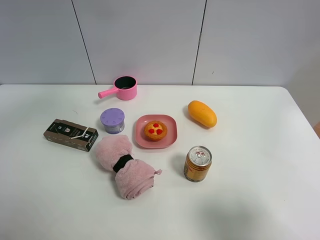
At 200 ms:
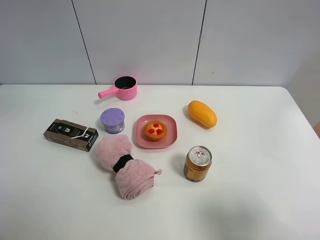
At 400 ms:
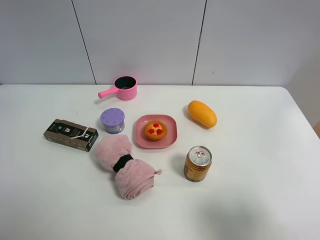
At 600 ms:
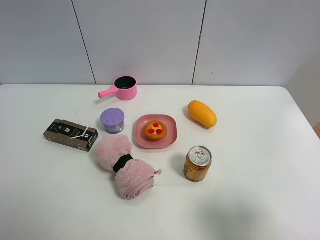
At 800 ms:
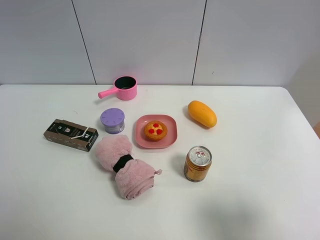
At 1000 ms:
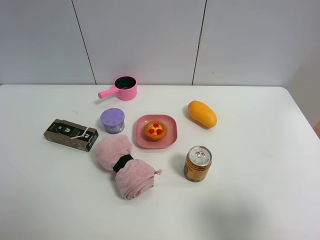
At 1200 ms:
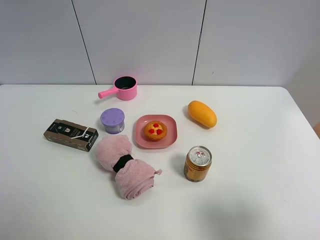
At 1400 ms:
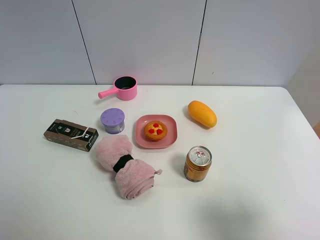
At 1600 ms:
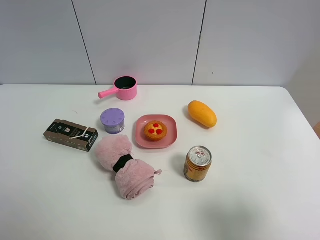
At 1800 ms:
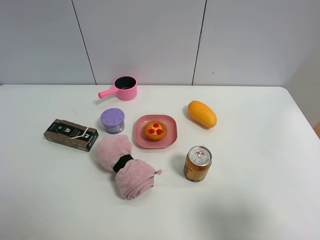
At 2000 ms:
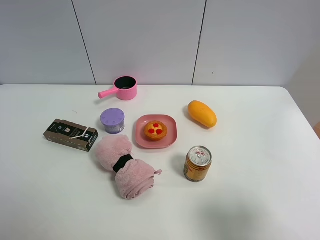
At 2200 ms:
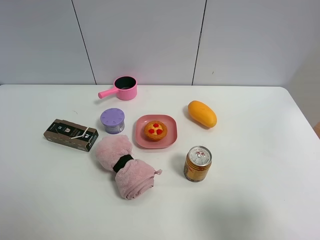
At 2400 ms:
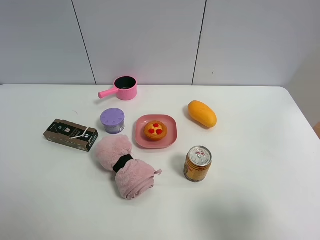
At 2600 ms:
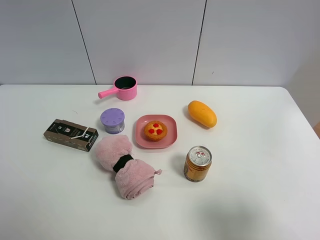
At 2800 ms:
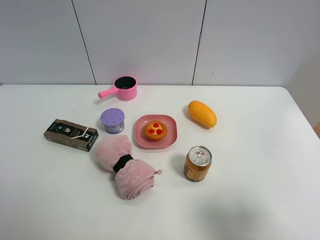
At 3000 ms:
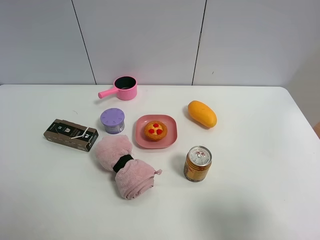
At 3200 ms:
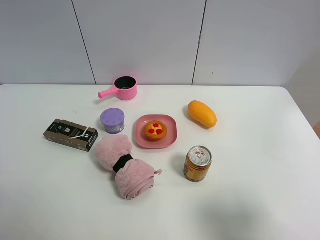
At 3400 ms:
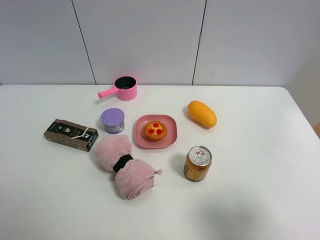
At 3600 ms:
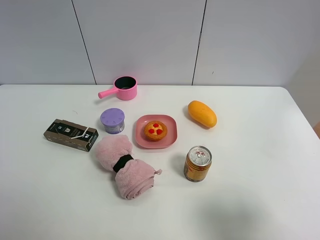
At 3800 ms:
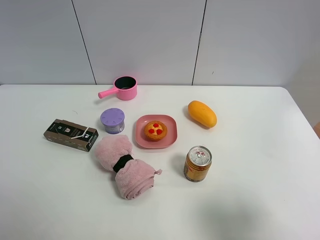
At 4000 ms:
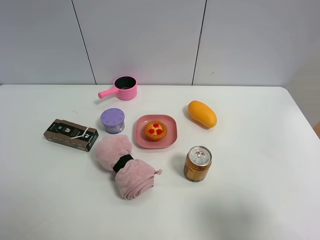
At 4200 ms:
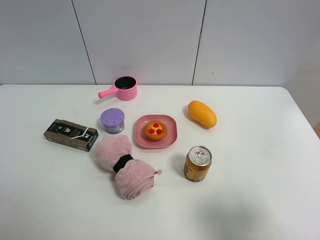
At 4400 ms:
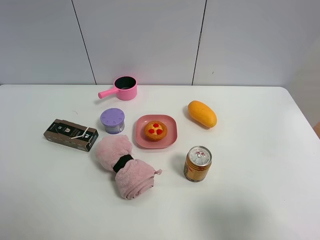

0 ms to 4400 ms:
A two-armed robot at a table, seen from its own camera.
Task of the whole recording: the gripper move the object.
0 ms to 1400 ms: The left gripper is displaced backward and to the left by roughly 40 cm.

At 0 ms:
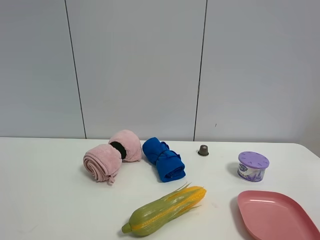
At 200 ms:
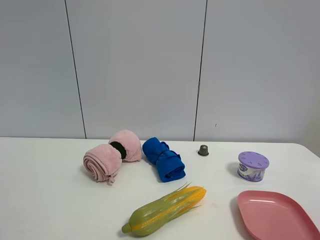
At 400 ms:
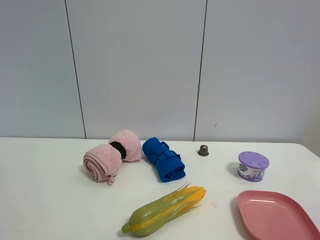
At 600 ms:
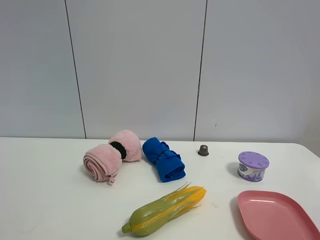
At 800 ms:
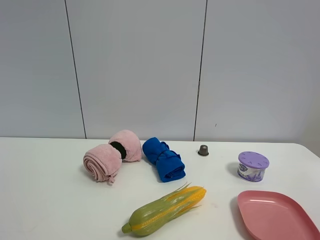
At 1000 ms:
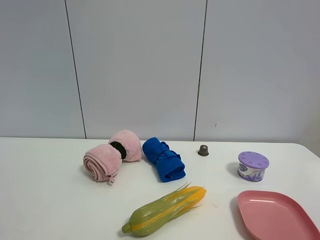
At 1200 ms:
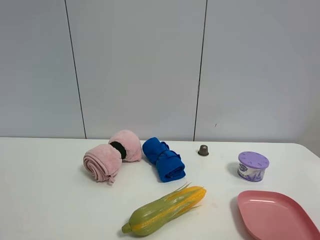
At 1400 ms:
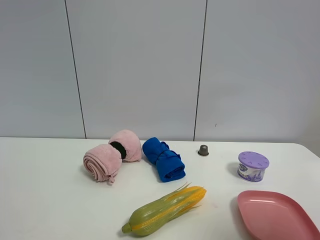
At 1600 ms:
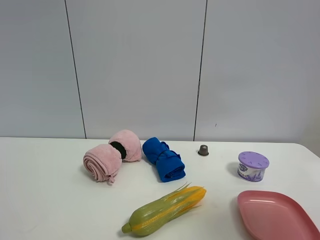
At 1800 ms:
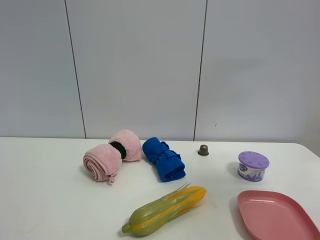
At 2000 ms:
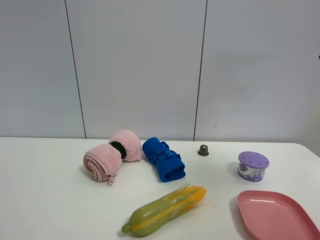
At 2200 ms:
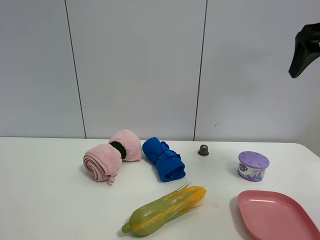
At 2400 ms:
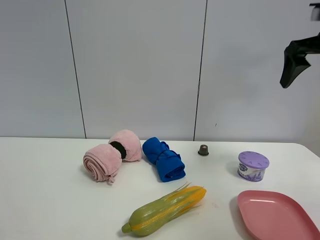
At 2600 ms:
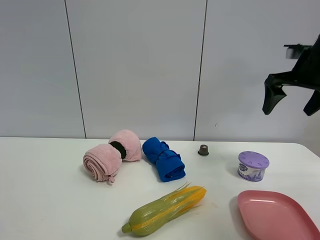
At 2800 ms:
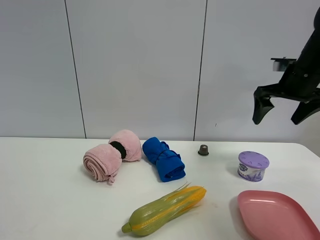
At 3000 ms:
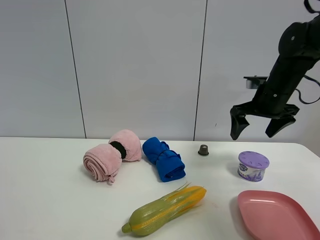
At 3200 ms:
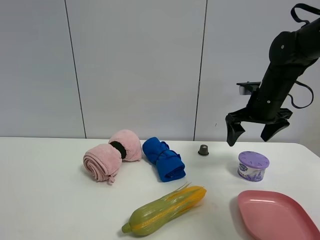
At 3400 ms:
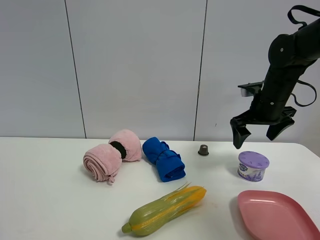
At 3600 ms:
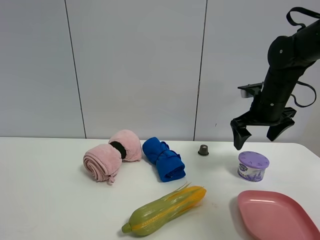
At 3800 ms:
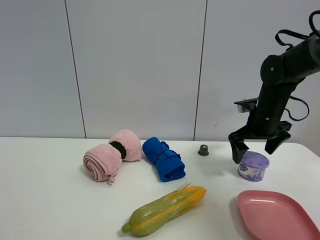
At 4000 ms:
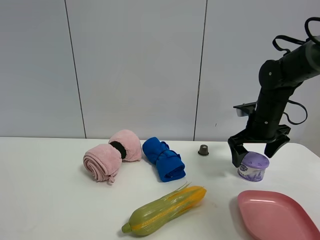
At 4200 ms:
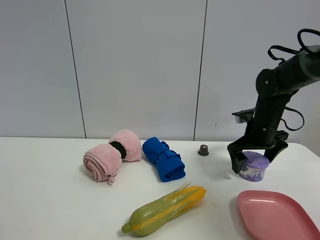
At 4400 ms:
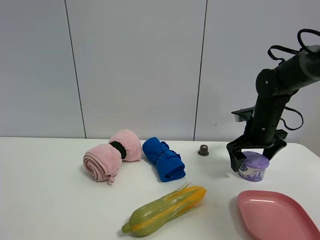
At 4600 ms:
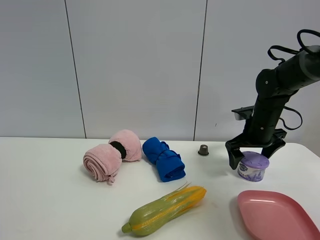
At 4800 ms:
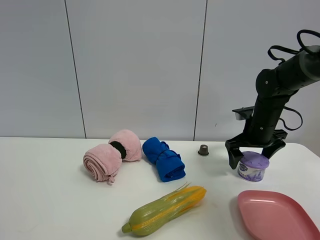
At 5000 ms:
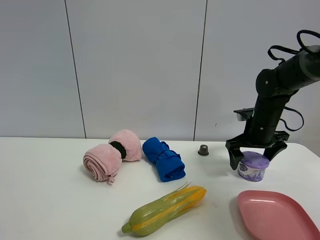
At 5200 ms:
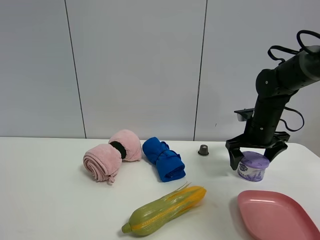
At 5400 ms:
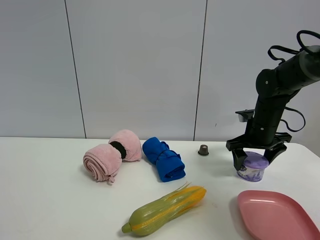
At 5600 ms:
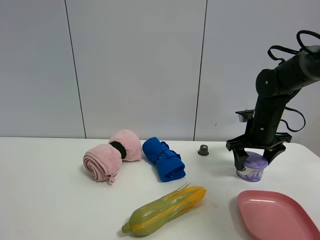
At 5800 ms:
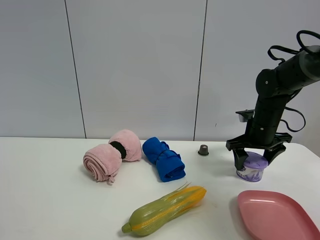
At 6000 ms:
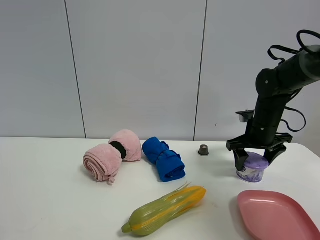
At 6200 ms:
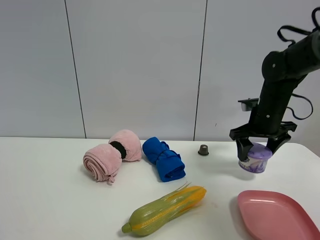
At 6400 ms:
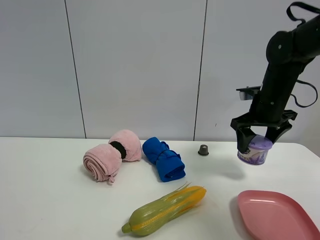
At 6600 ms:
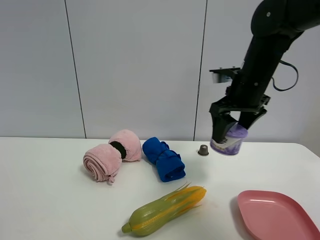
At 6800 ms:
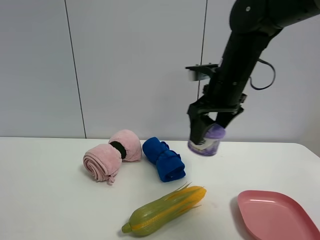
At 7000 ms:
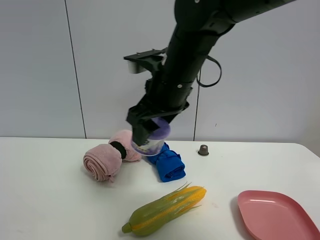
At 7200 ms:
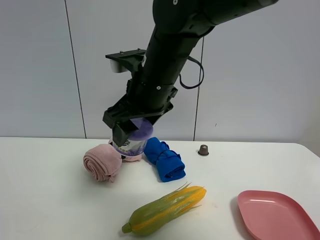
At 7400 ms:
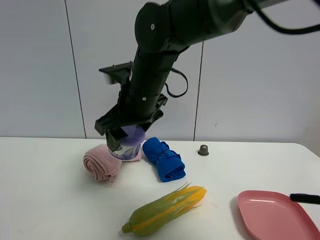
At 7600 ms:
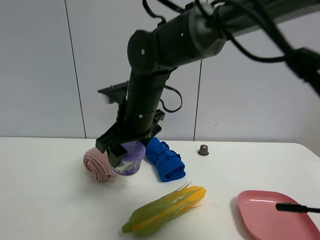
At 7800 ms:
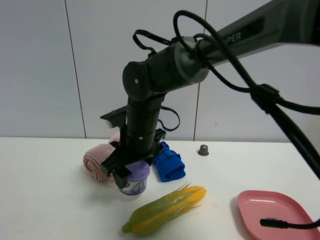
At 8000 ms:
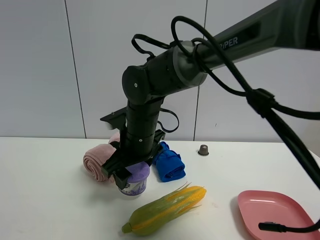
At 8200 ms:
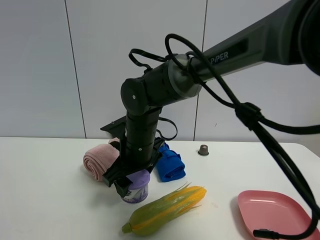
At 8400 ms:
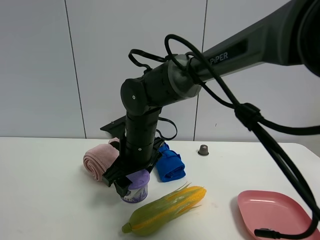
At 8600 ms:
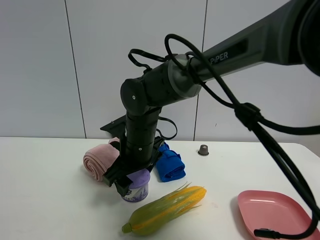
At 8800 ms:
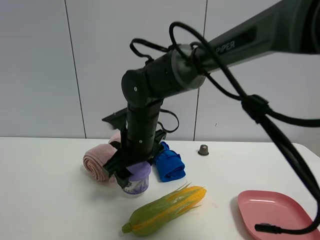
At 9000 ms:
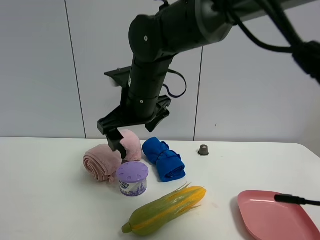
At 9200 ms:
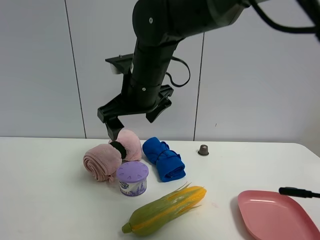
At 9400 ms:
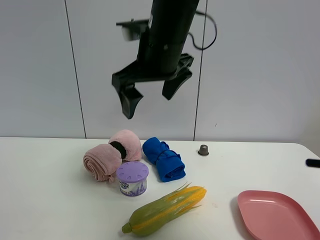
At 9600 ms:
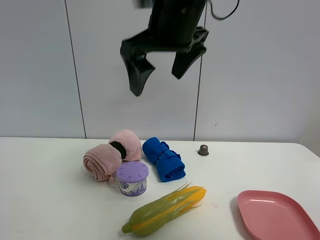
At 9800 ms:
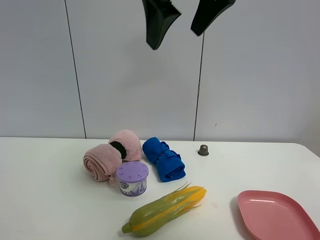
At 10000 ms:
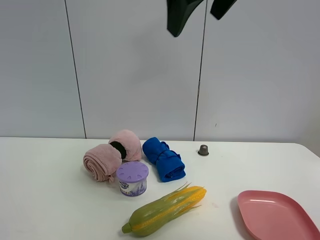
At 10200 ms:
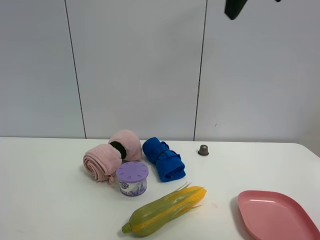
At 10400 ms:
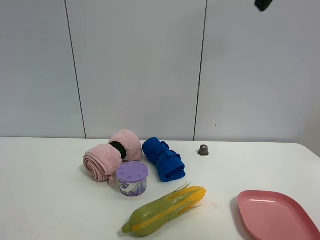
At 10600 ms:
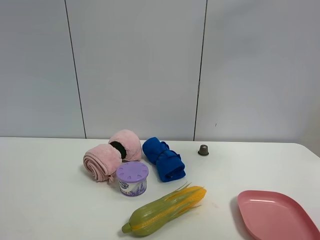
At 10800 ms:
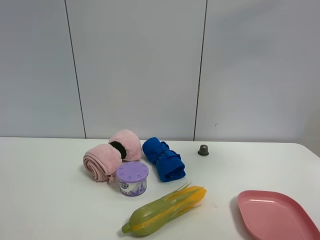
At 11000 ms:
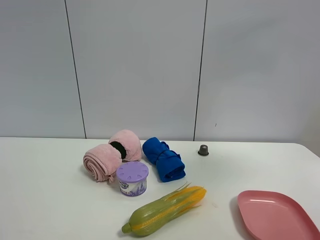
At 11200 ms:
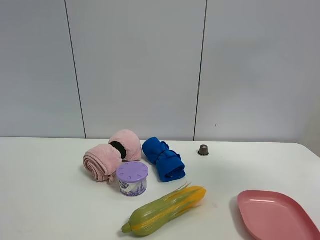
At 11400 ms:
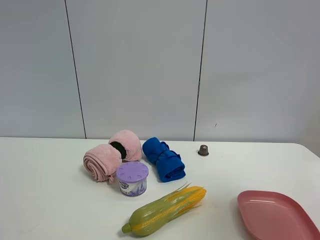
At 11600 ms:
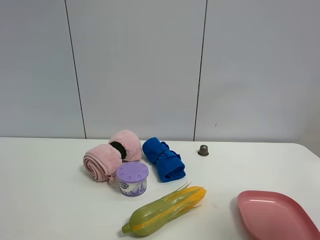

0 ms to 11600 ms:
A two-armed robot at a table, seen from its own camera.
Task of the whole recording: the gripper move the object.
Step, 0 ms to 5600 ms: Grasp the Incense box with the right gripper.
Step, 5800 ms to 8800 ms: Place the Incense box on the table with the right gripper.
0 ms to 1400 ms: The right gripper goes roughly 15 cm upward and forward.
1400 ms to 2800 ms: The right gripper goes roughly 35 cm forward.
2800 ms to 4400 ms: The right gripper is displaced downward by roughly 10 cm.
4400 ms to 5800 ms: The right gripper closes.
5800 ms to 7200 ms: The right gripper is displaced to the left, backward and upward by approximately 30 cm.
7200 ms to 8800 ms: The right gripper shifts some 10 cm downward.
8800 ms to 10200 ms: The right gripper moves upward and to the right, roughly 35 cm, and opens up.
10200 ms to 11600 ms: The right gripper goes roughly 25 cm backward, to the right and downward.

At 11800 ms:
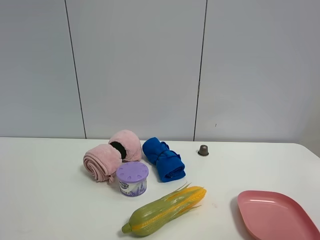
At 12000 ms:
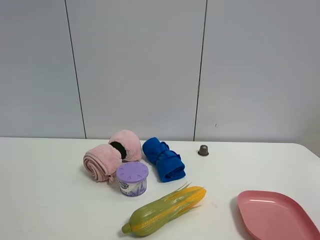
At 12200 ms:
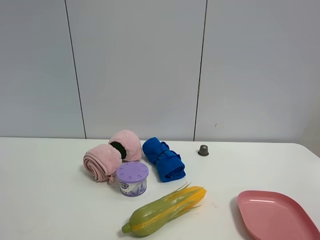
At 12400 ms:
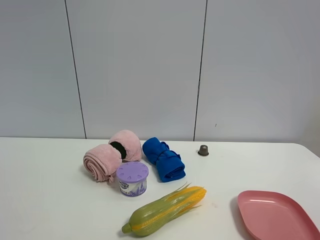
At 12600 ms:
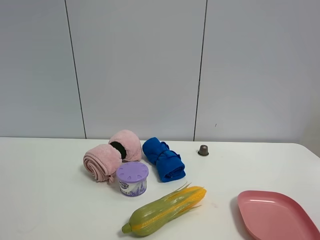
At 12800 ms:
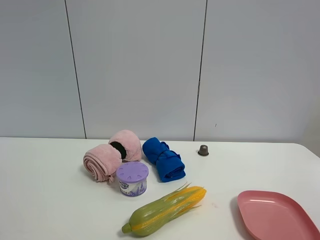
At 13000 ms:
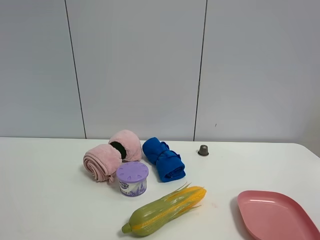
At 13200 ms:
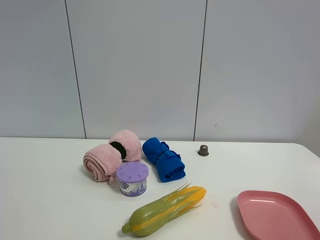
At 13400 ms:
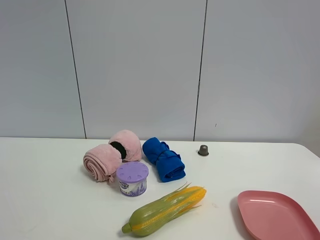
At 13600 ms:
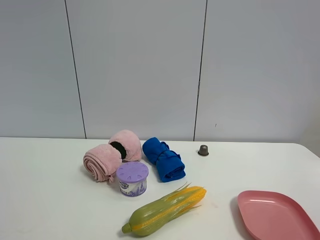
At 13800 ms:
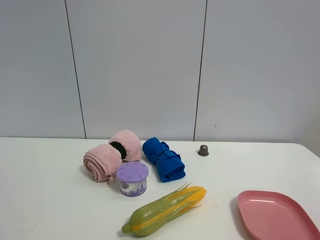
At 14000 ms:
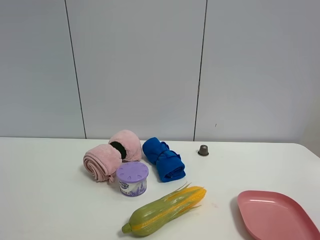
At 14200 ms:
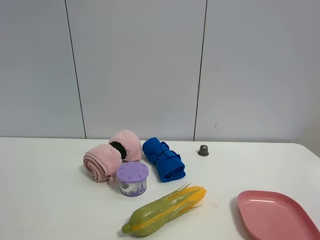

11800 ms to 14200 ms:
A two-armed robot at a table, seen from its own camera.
Task of the whole recording: the gripper move the object.
13000 ms to 14200 ms: Both grippers stay about where they are.

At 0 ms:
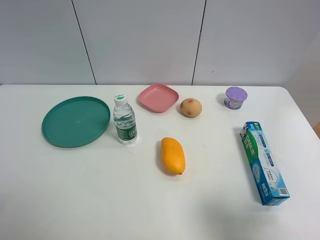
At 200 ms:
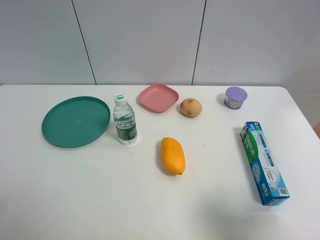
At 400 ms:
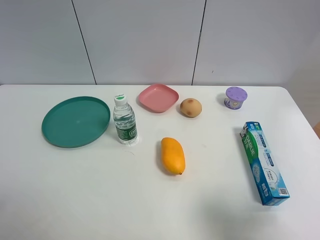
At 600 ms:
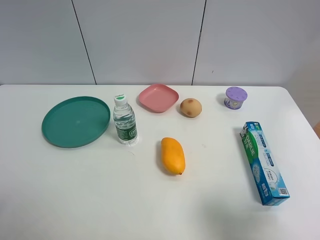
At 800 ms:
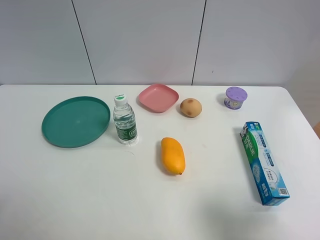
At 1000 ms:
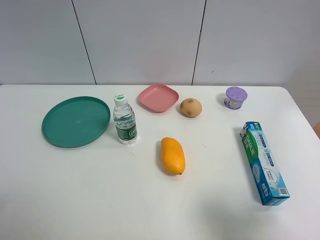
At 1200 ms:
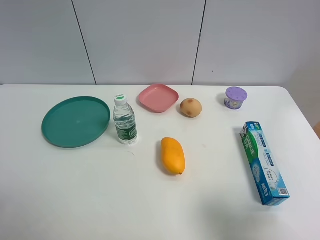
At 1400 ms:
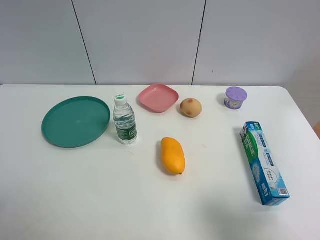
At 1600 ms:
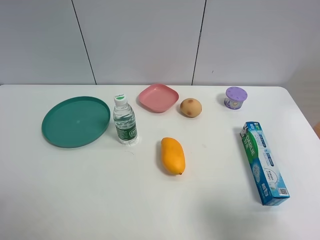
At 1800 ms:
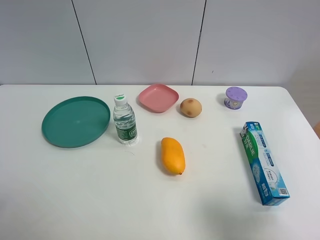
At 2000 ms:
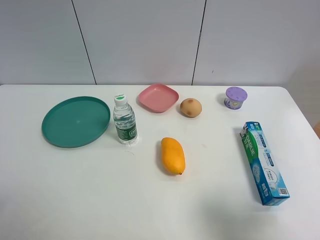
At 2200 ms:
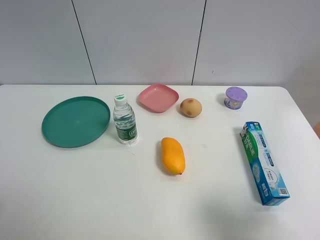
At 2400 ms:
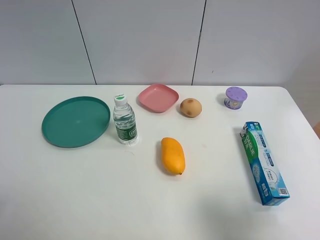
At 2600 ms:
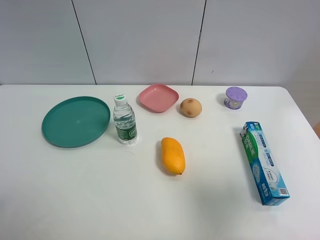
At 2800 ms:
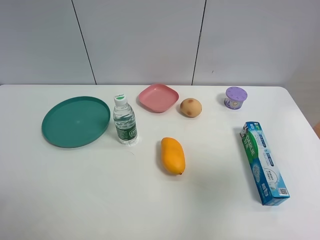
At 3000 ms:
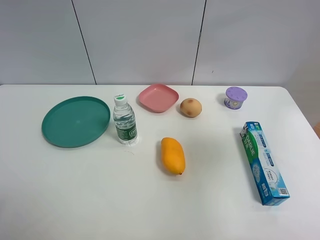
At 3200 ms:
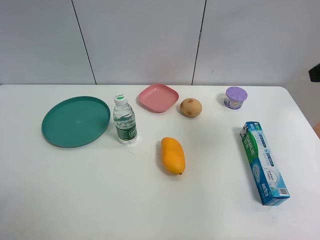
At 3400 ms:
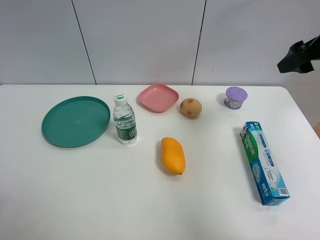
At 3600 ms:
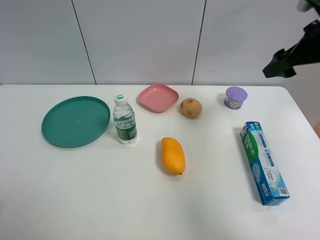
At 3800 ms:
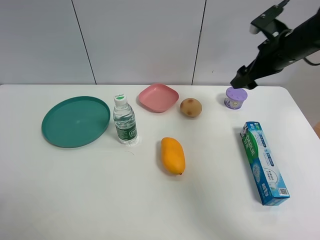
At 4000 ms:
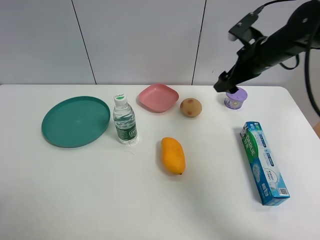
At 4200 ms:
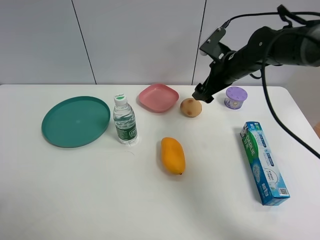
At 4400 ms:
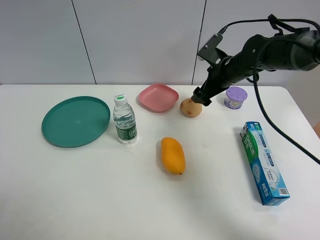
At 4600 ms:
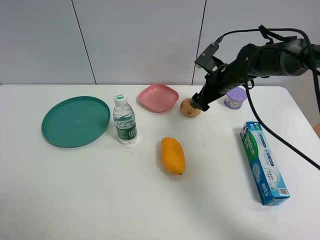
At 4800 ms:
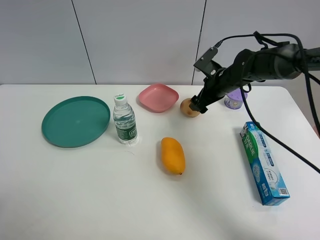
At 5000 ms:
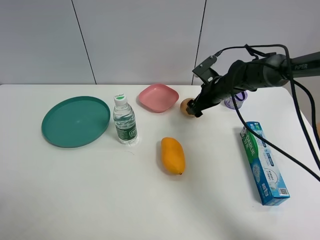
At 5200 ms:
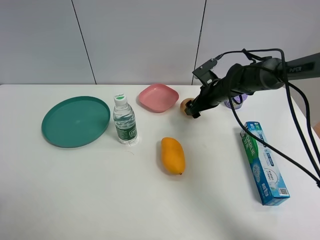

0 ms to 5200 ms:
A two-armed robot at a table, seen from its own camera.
Task of the whole recording: the gripper move the object.
0 ms to 1800 ms: Neither gripper changes place.
1800 ms to 3400 ms: The right gripper heads forward, covering some 30 cm.
3400 ms to 5200 ms: The right gripper travels downward, to the left and forward by about 30 cm.
